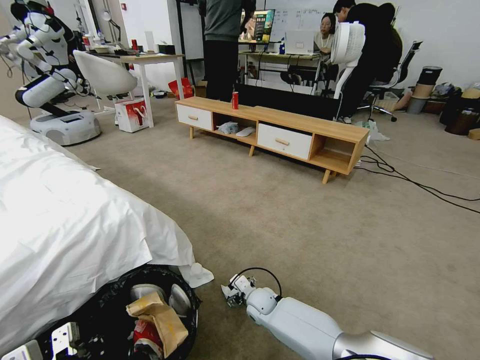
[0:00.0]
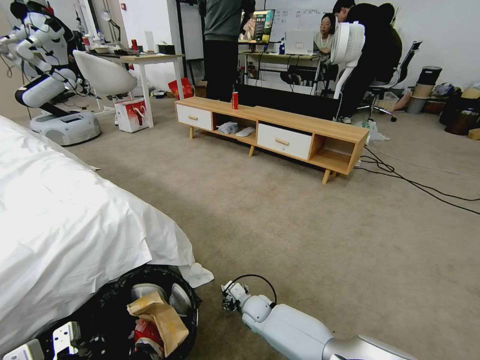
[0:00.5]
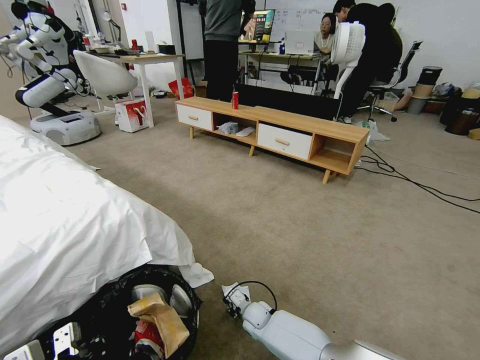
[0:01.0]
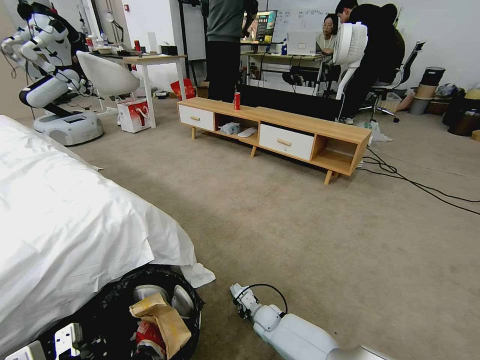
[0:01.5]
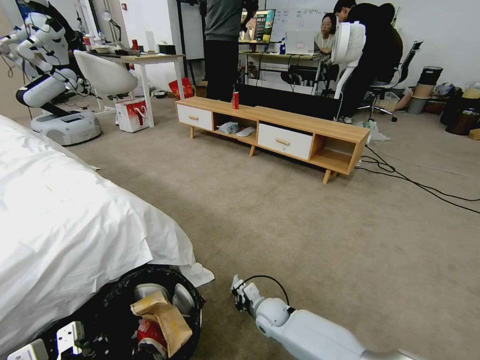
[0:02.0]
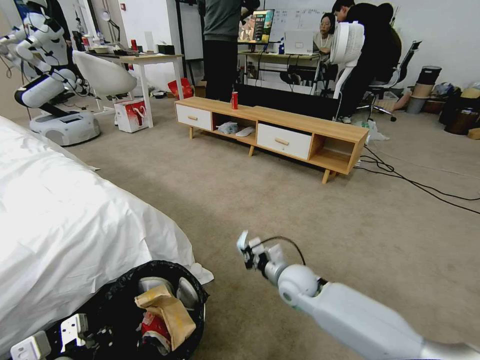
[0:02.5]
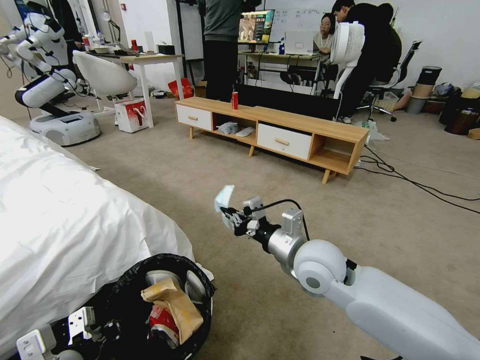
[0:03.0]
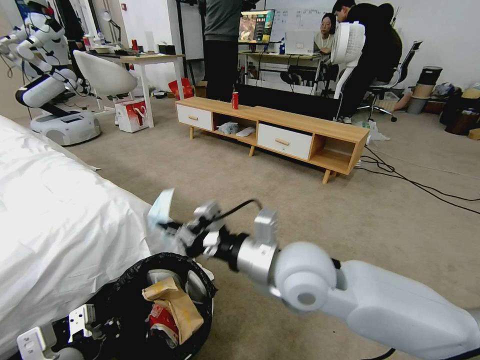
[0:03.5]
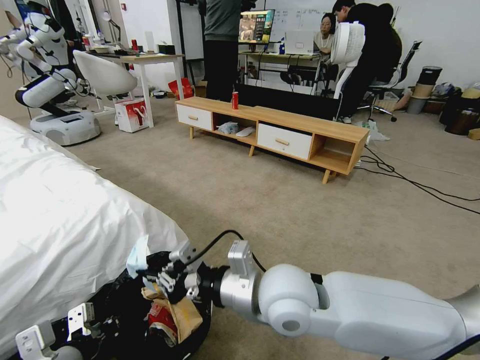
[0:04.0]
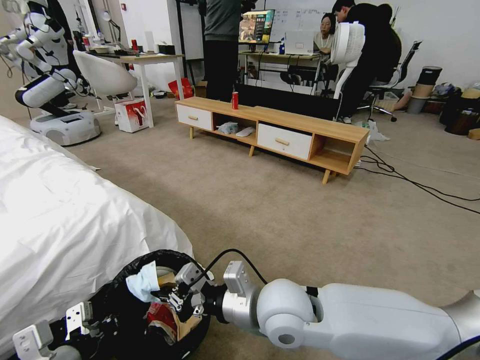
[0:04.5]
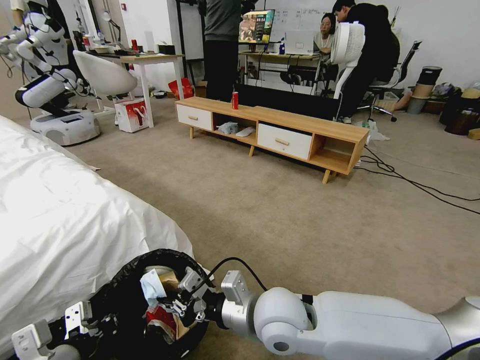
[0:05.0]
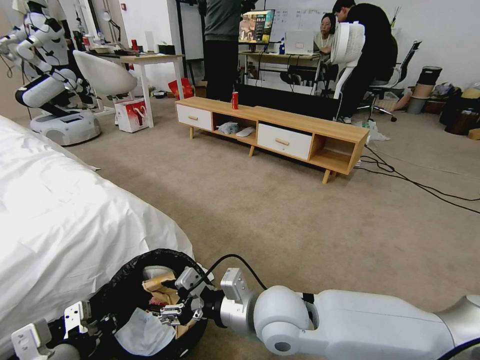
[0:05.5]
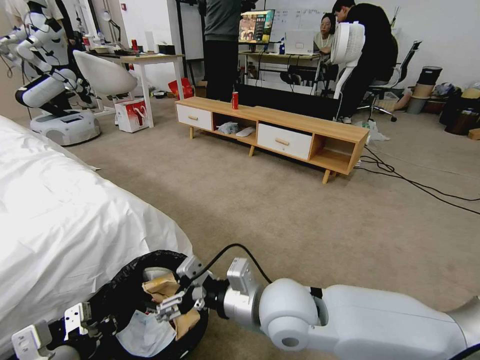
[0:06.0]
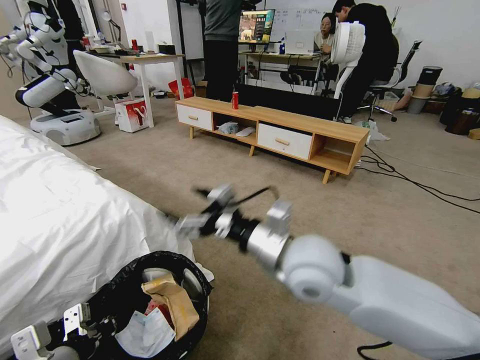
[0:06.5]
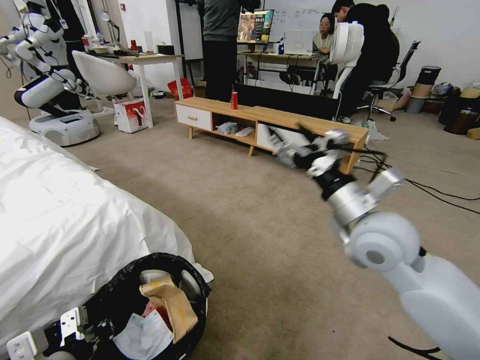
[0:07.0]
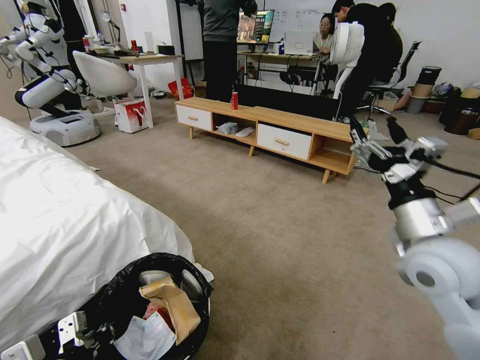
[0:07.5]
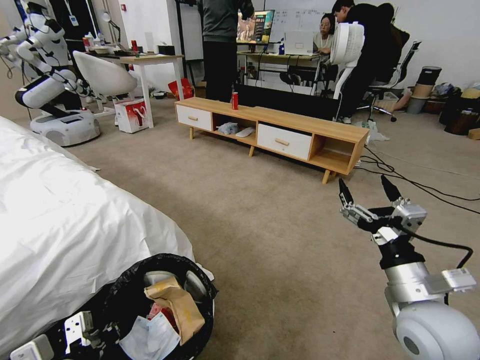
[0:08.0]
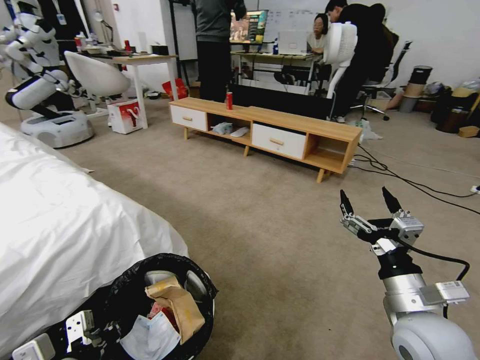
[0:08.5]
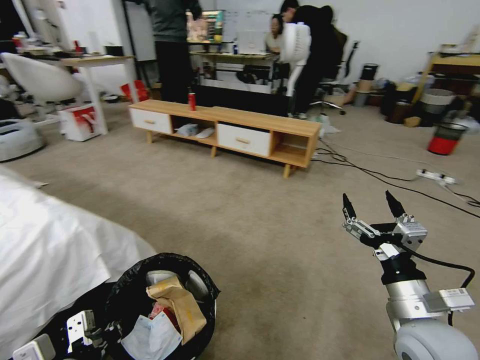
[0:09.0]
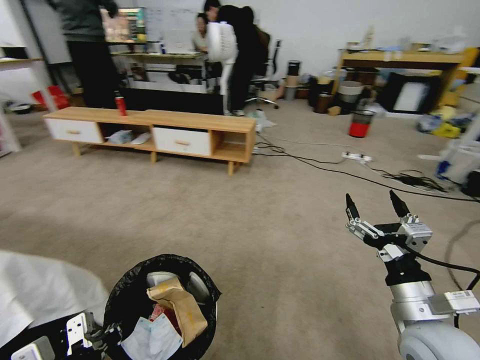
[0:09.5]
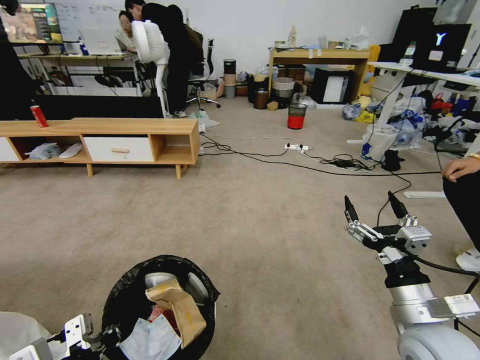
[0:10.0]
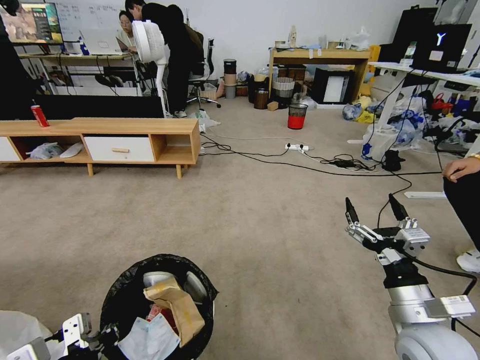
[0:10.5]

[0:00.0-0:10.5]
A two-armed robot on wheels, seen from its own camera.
Task of the whole recording: Pick up the trash bin and place the garbage on the floor into it.
0:00.0 to 0:02.0: The right gripper closes its fingers.
0:02.0 to 0:04.0: The right gripper moves upward, some 35 cm.
0:04.0 to 0:06.5: The right gripper changes place by roughly 5 cm, and opens.
0:06.5 to 0:08.5: The right gripper heads to the right, downward and backward, covering some 25 cm.

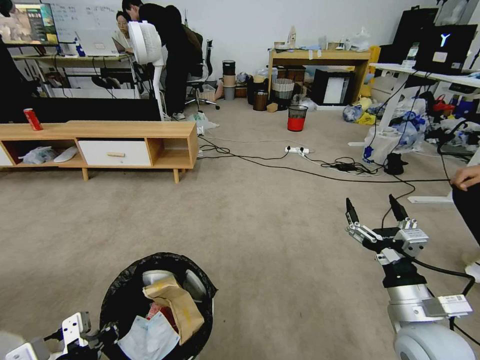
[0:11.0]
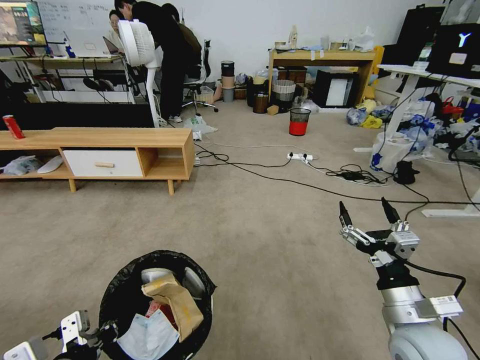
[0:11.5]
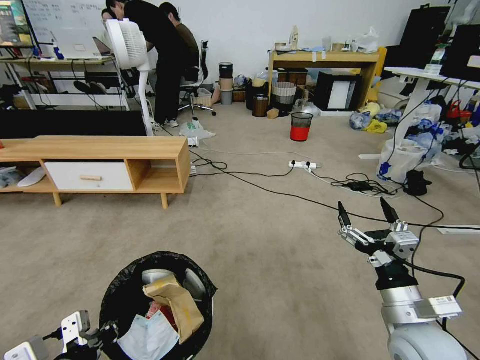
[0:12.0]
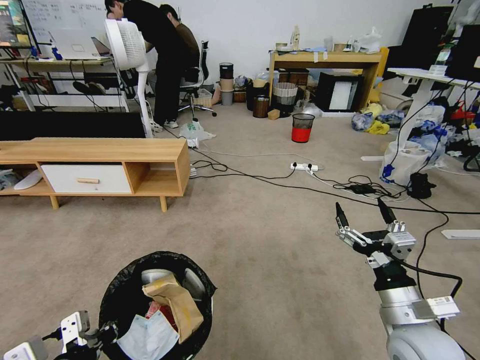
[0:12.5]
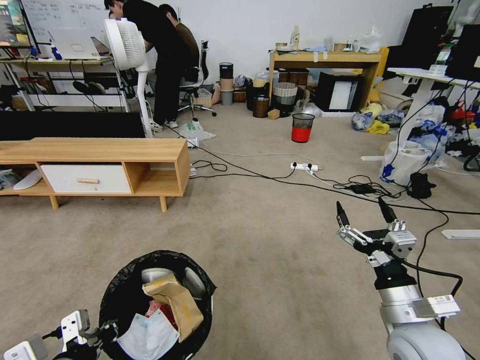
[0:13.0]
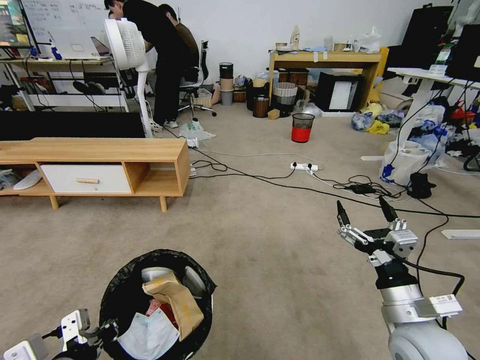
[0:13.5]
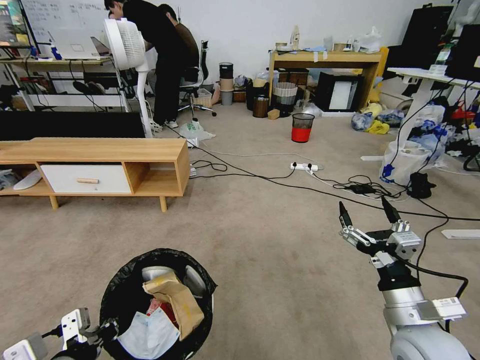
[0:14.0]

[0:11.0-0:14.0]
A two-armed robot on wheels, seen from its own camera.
Task of the whole recording: Pick up the trash bin and place the garbage on the floor into it.
0:12.5 to 0:14.0: Neither gripper changes place.
